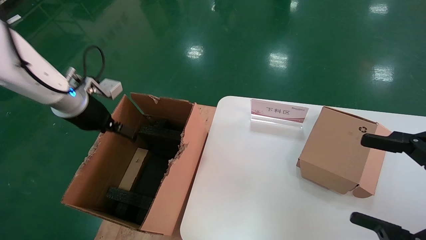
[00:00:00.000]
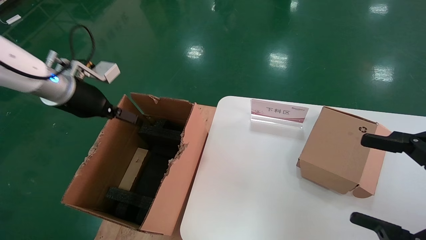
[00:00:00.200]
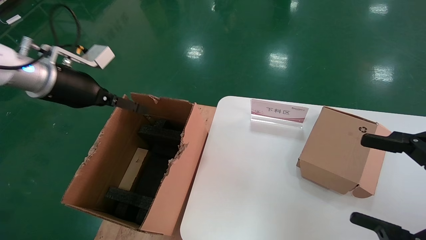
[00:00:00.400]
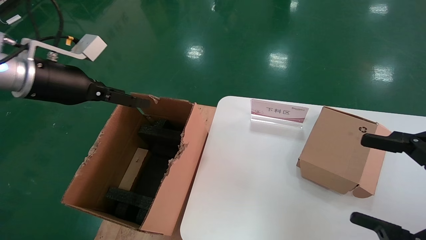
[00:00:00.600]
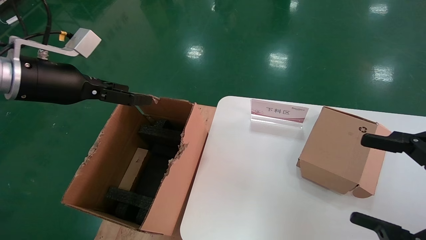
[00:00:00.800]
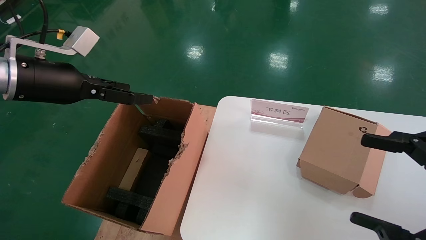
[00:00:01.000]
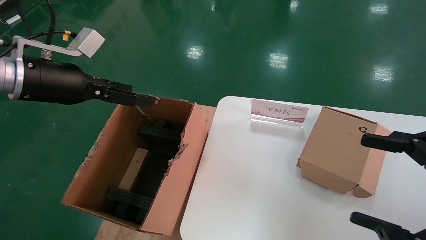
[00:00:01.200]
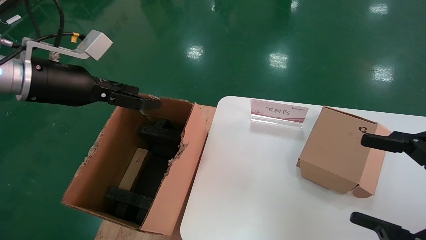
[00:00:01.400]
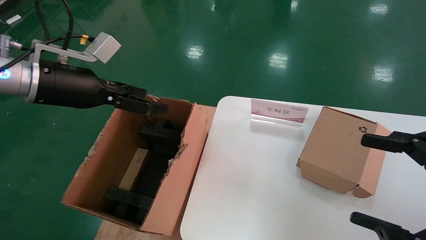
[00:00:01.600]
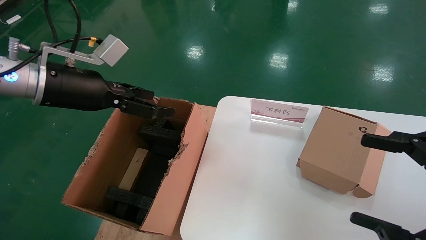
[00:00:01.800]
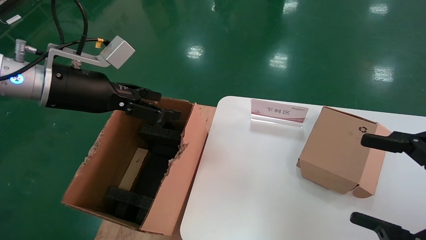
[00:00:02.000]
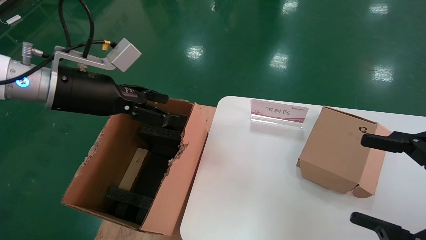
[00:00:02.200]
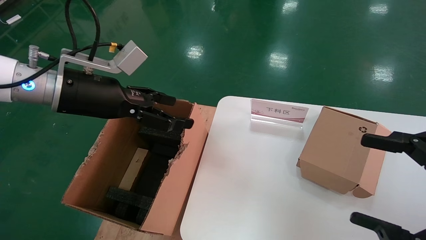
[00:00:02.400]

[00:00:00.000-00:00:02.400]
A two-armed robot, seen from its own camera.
Task of the whole recording: put the box on the table into the big box.
00:00:00.000 to 00:00:01.200: The left gripper heads backward and upward, covering some 10 cm.
00:00:01.200 to 00:00:02.400: The left gripper goes some 5 cm to the right.
